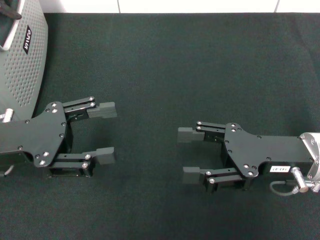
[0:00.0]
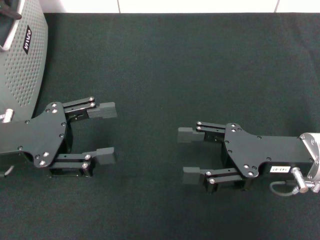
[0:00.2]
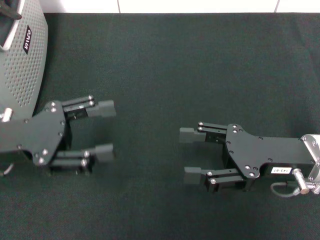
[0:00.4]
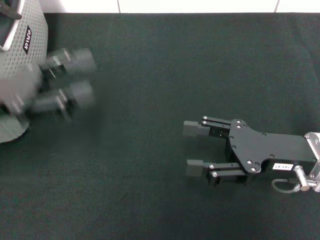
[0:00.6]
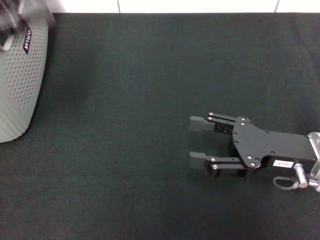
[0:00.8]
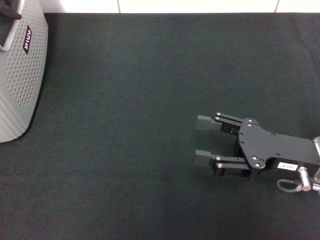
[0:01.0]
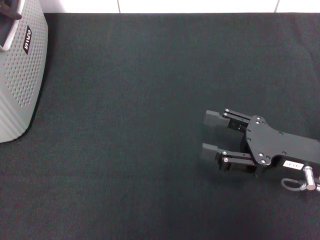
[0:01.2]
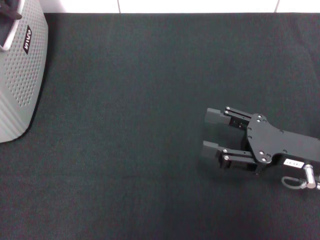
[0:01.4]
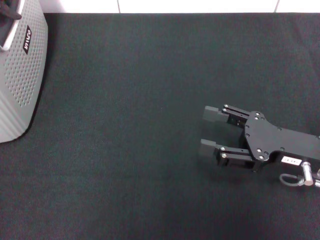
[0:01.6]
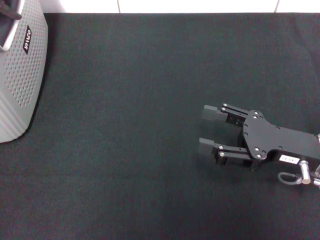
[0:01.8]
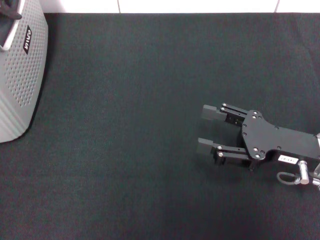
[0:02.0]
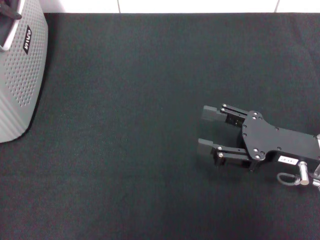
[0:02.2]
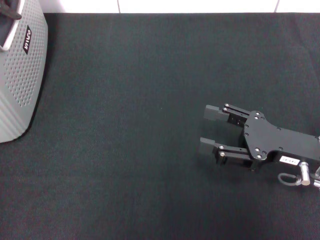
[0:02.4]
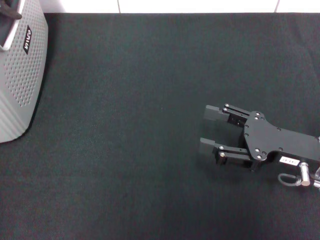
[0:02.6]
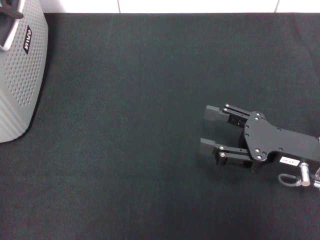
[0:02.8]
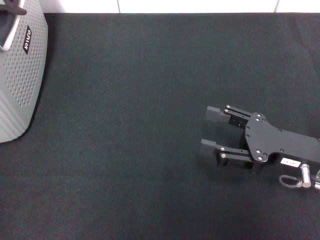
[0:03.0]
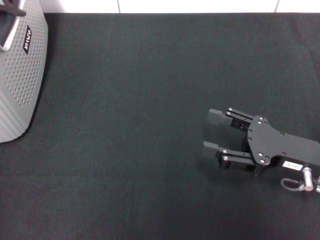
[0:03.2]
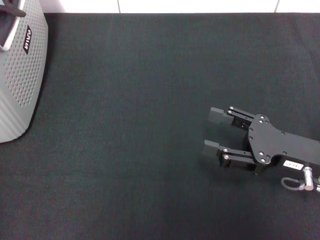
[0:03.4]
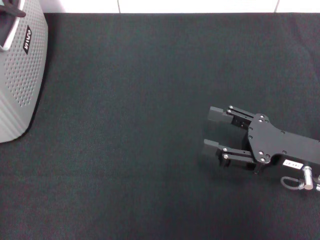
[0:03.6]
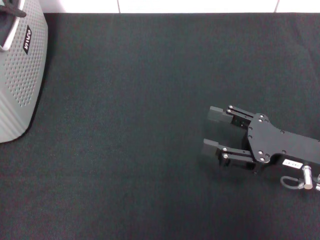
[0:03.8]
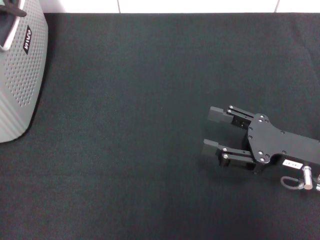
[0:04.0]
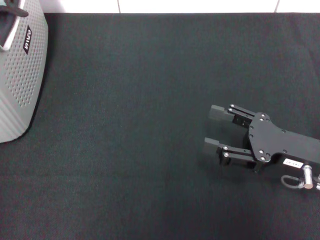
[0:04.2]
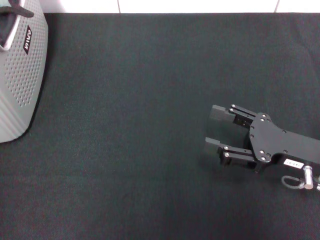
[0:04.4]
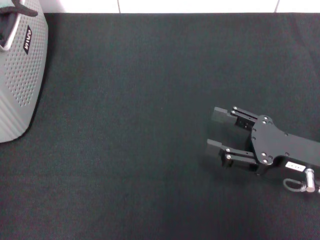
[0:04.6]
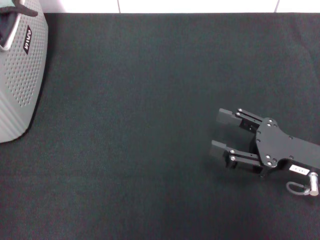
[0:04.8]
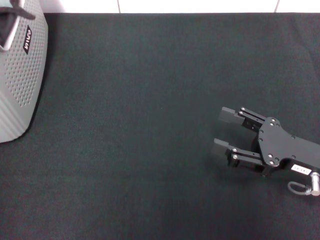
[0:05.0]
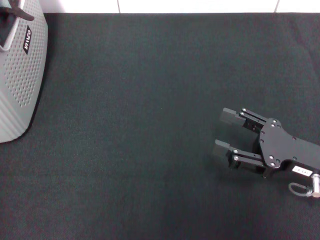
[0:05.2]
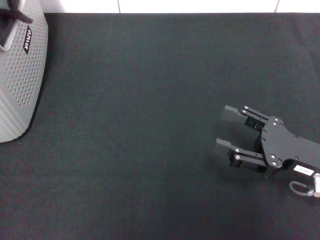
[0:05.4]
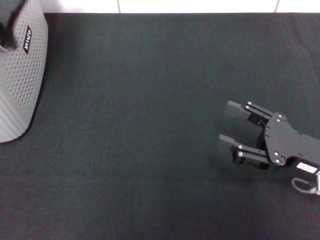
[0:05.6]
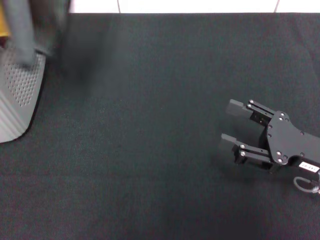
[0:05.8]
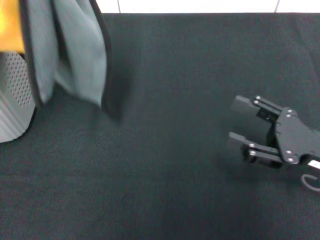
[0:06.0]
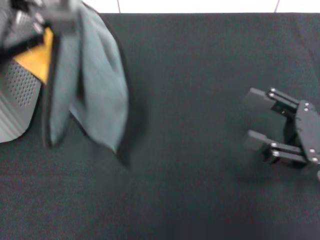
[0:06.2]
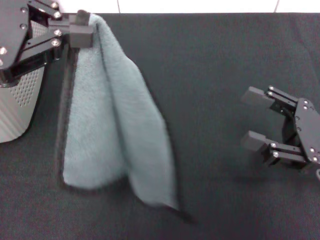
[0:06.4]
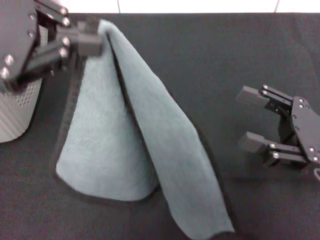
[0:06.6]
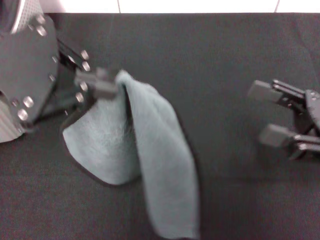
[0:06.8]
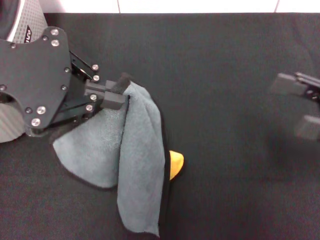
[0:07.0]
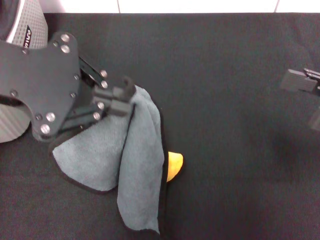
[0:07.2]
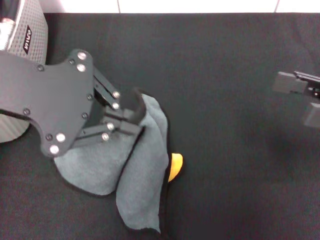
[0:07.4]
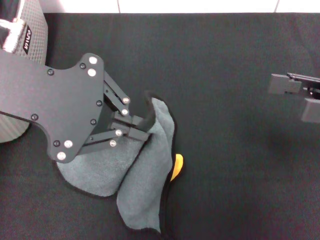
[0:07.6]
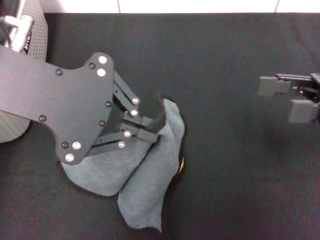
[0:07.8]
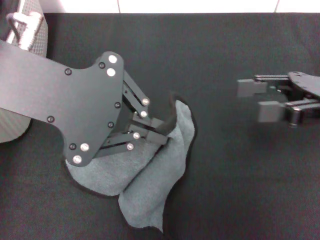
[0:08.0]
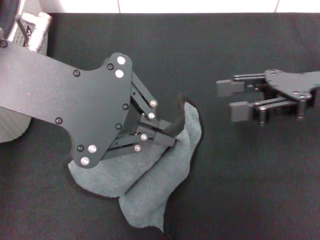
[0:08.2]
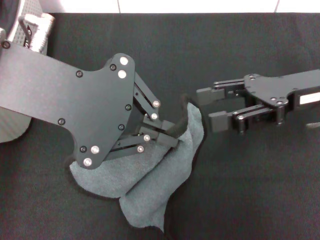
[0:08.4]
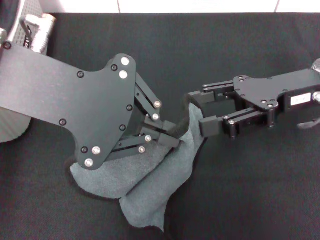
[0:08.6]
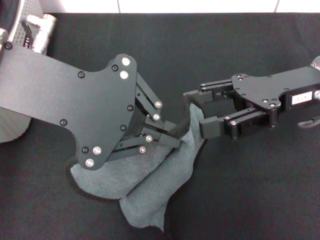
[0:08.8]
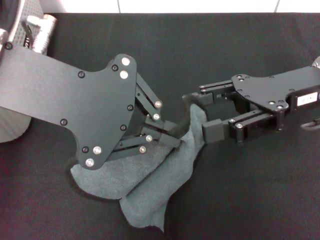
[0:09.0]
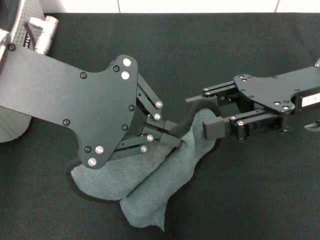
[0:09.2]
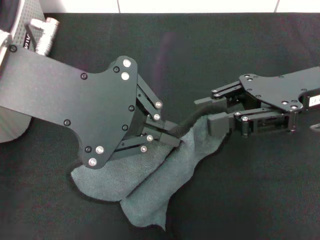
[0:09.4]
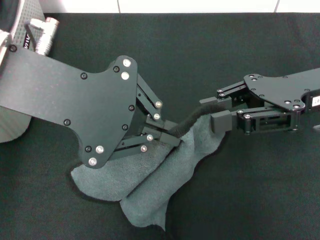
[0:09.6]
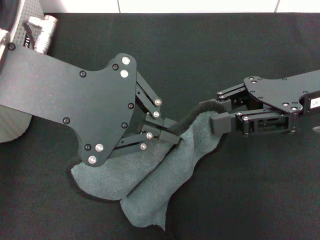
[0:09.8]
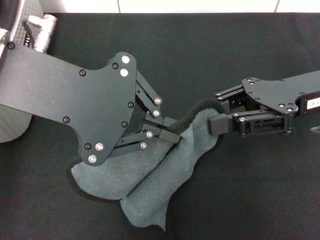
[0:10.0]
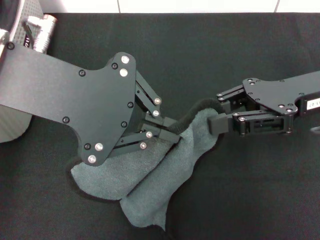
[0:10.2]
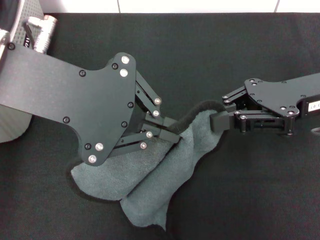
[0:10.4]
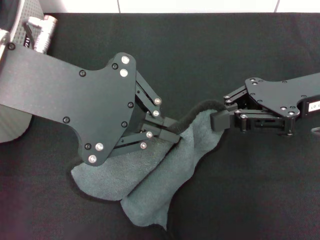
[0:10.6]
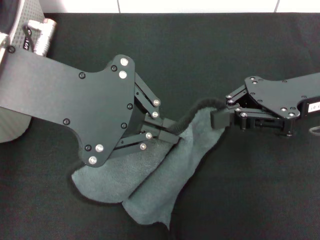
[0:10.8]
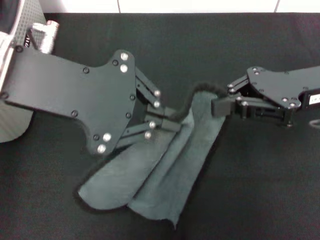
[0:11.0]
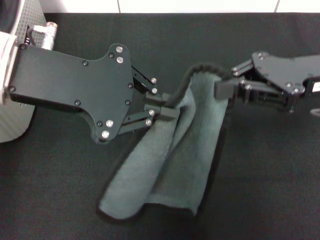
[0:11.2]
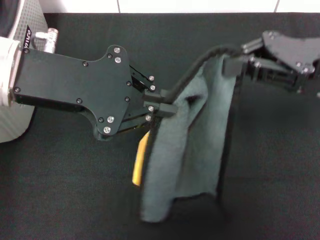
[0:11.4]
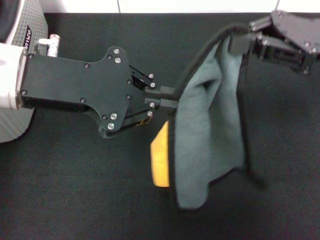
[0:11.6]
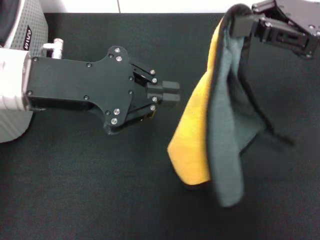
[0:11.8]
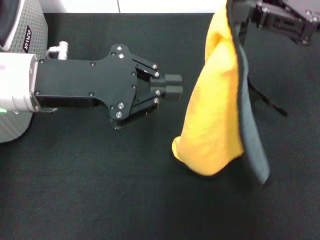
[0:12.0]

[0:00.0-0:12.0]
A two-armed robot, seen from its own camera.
Task of the whole recording: pick up the towel from the storage box and lay it flat on the black tablecloth.
Step, 0:00.0 to 0:05.0: Pick up a towel with the left gripper.
Step, 0:05.2 to 0:10.8: Spread the towel flat with the left gripper.
0:00.0 to 0:01.6: The left gripper is displaced upward and to the left by some 20 cm.
0:03.0 to 0:04.4: The grippers move only a little.
0:04.4 to 0:06.0: The left gripper is displaced upward and backward by about 10 cm, and closes up.
0:06.0 to 0:07.6: The right gripper heads upward, covering some 10 cm. The left gripper travels to the right by roughly 10 cm.
0:07.6 to 0:09.0: The right gripper heads to the left, covering about 10 cm.
0:09.0 to 0:10.4: The right gripper closes.
0:10.4 to 0:12.0: The left gripper goes some 10 cm downward; the right gripper is displaced upward by approximately 5 cm.

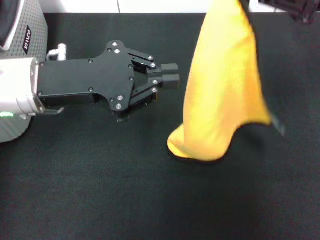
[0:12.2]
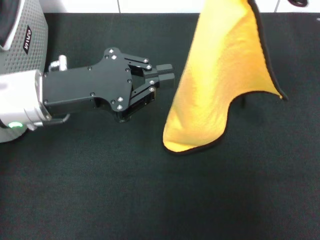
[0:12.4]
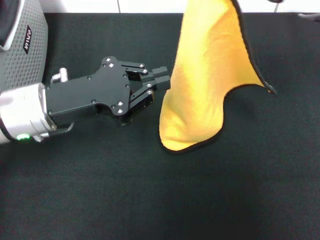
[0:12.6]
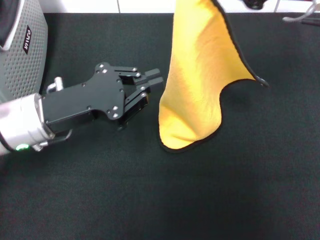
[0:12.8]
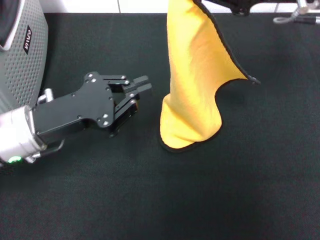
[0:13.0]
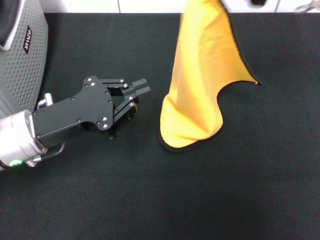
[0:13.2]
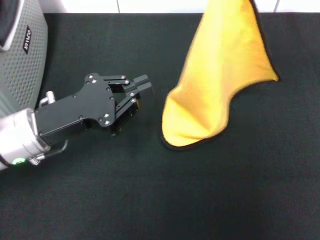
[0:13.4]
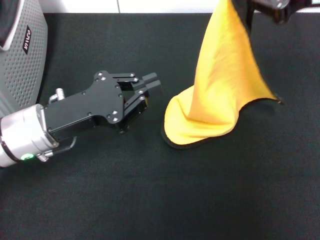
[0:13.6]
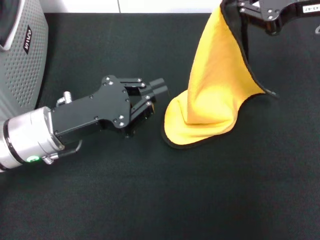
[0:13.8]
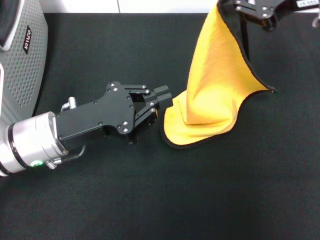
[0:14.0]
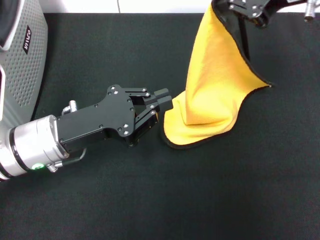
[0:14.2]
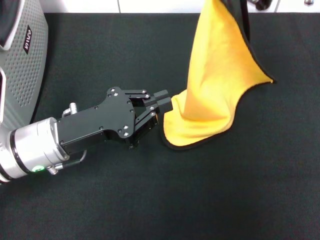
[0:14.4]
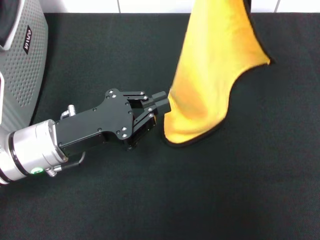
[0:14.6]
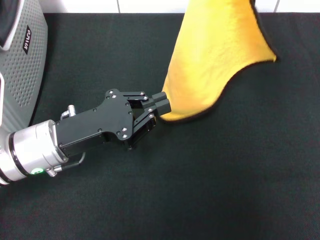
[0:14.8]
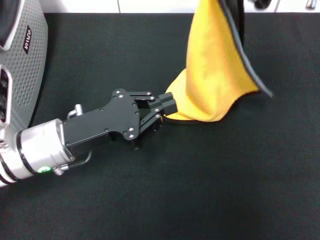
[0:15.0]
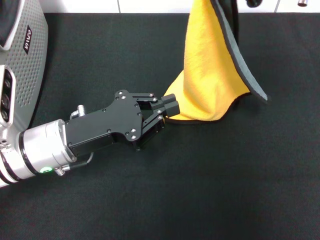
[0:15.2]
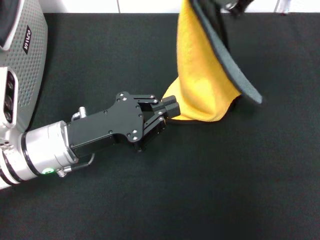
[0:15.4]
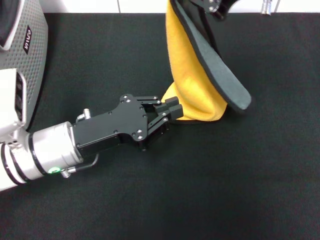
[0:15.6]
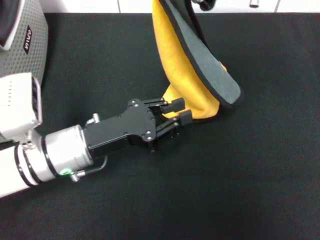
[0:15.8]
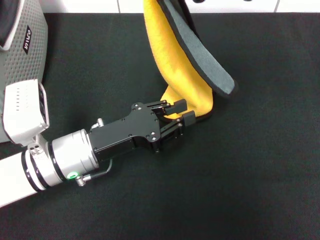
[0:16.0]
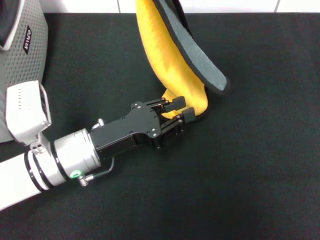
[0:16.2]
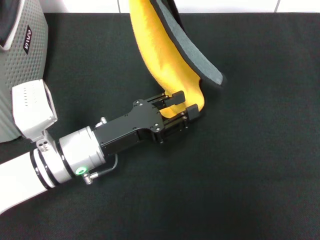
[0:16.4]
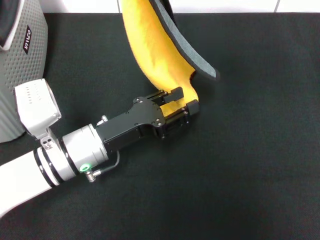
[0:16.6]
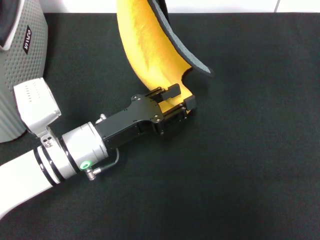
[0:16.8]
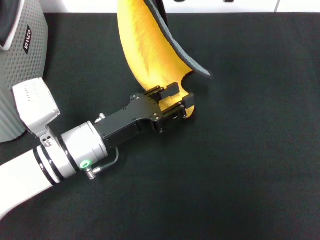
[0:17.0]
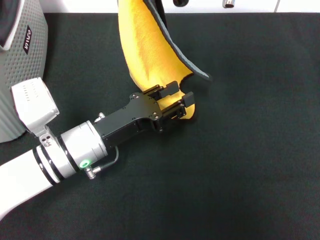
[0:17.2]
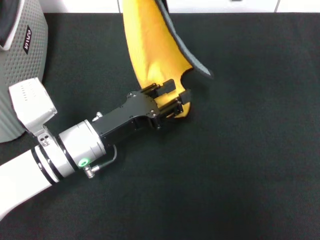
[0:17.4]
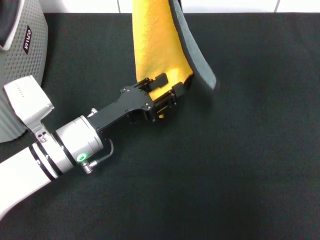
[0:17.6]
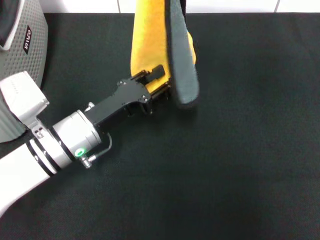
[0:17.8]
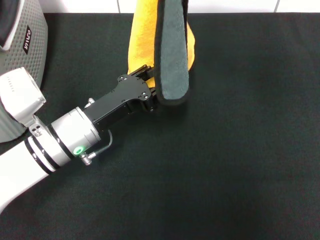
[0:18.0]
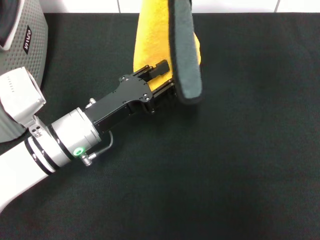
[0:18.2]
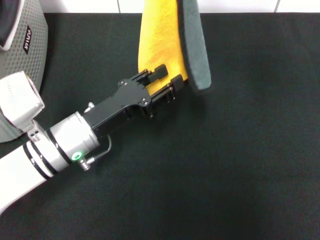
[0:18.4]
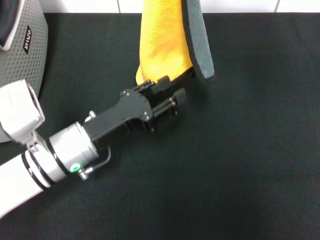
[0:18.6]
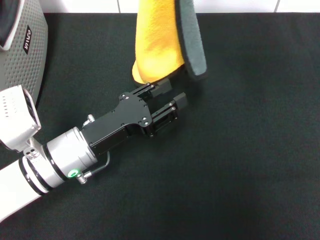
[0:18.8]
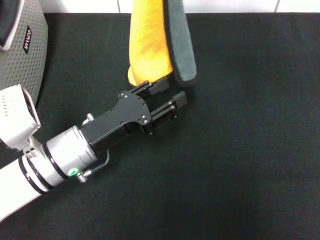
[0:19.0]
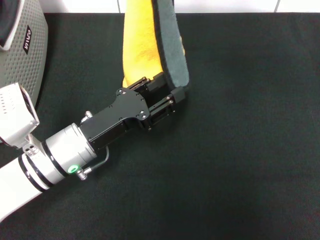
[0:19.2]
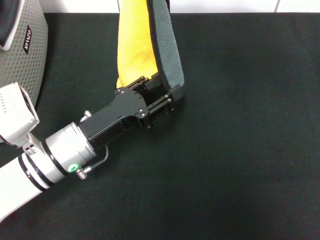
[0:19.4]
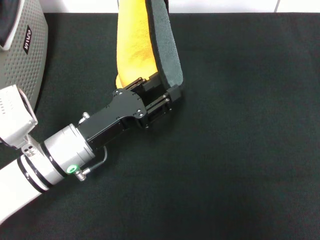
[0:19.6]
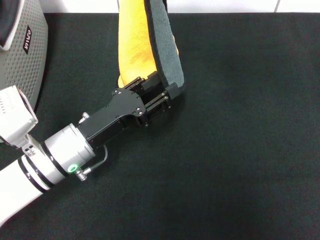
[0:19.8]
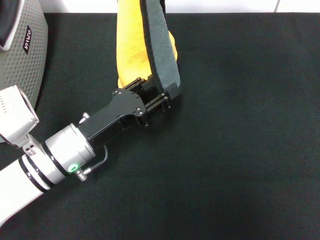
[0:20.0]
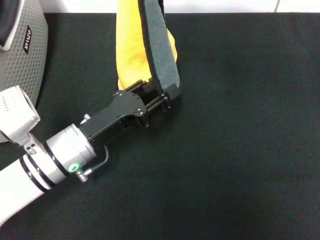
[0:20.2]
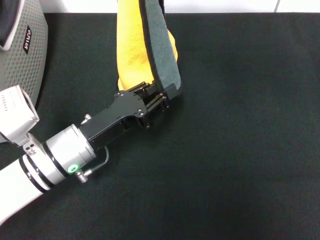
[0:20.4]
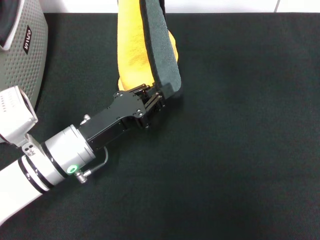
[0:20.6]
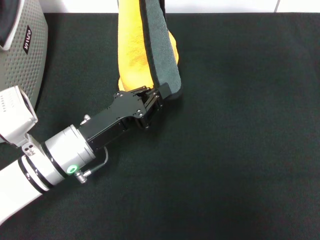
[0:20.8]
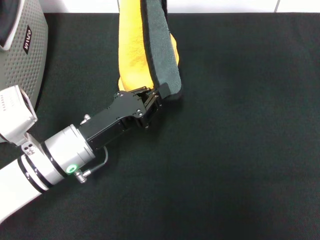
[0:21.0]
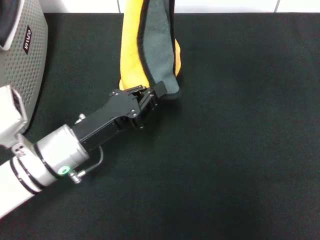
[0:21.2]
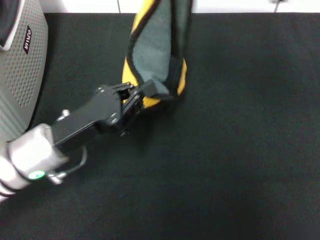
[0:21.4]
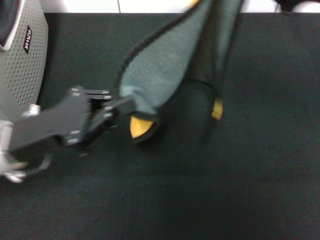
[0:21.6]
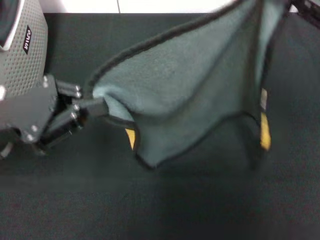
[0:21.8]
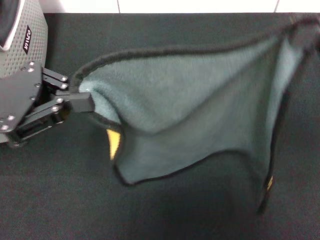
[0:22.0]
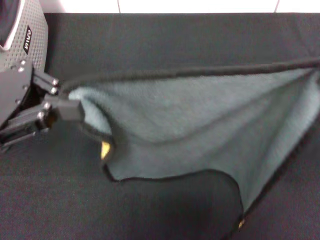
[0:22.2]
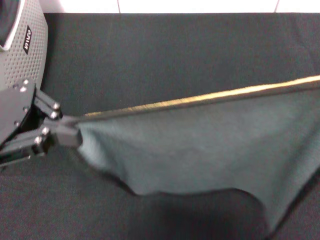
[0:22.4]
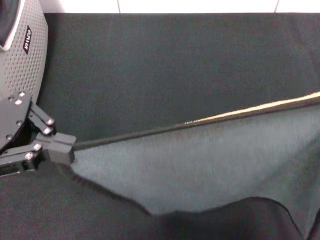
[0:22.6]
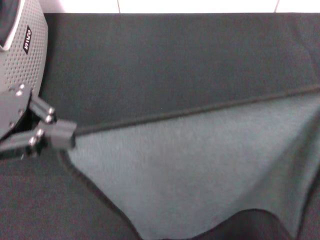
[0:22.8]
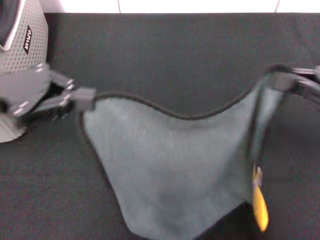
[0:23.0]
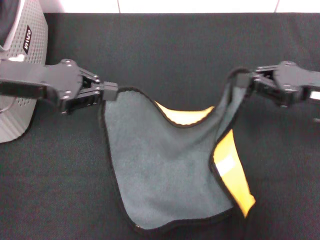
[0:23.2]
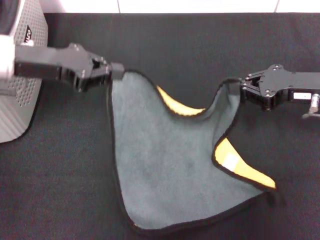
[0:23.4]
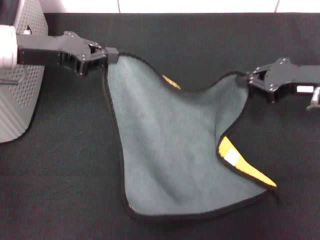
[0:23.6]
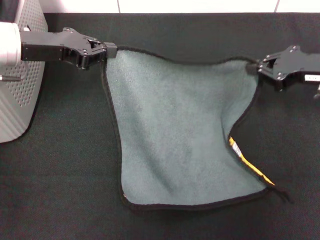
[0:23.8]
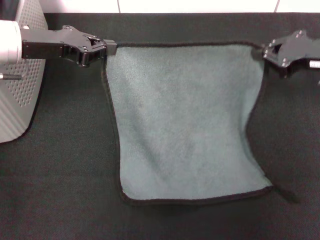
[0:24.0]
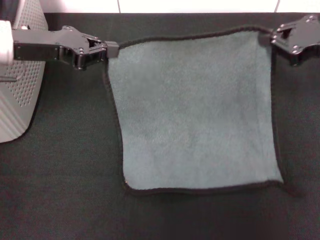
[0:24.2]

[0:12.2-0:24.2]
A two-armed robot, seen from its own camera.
Task of the whole recording: pick up the towel from the storage box and lay it flat on the black tablecloth.
0:12.2 to 0:13.8: The left gripper shifts roughly 10 cm downward.
0:13.8 to 0:15.2: The right gripper changes place by approximately 5 cm.
0:15.2 to 0:16.6: The left gripper moves roughly 5 cm, and opens up. The right gripper heads to the left, covering some 5 cm.
0:16.6 to 0:18.2: The right gripper ends up some 5 cm from where it was.
0:18.2 to 0:19.8: The right gripper shifts by approximately 5 cm.
0:19.8 to 0:21.2: The left gripper closes its fingers.
0:21.2 to 0:22.6: The left gripper moves upward and to the left, approximately 20 cm. The right gripper goes about 25 cm to the right, backward and downward.
0:22.6 to 0:24.2: The two grippers go roughly 15 cm forward.
